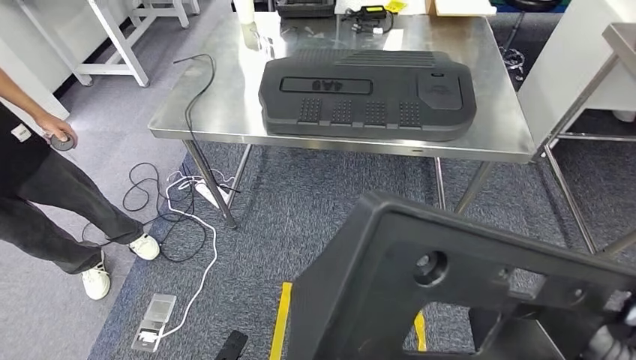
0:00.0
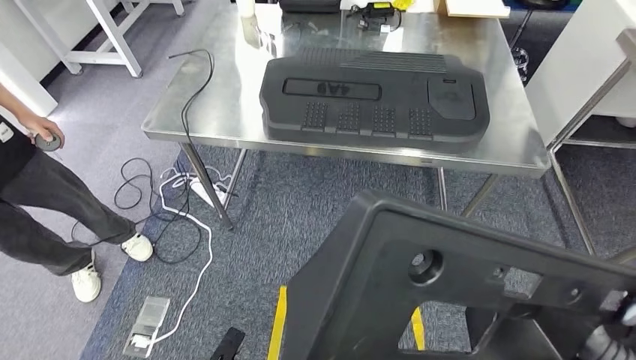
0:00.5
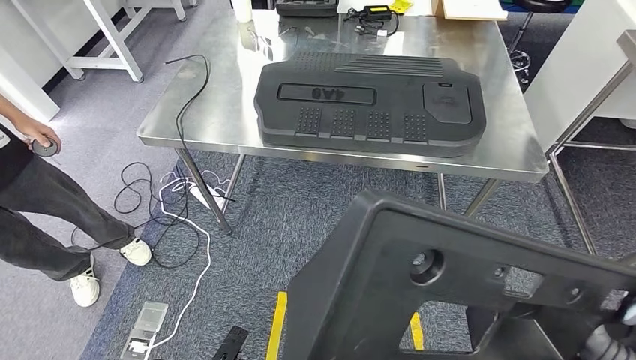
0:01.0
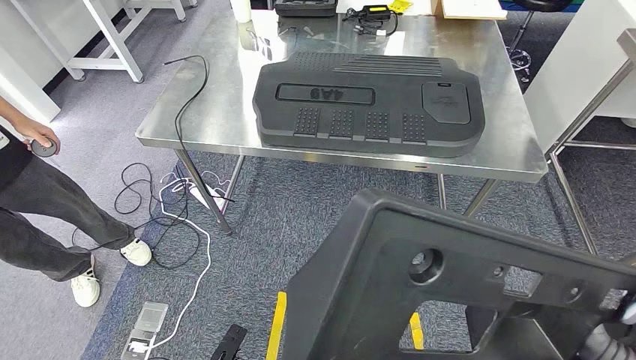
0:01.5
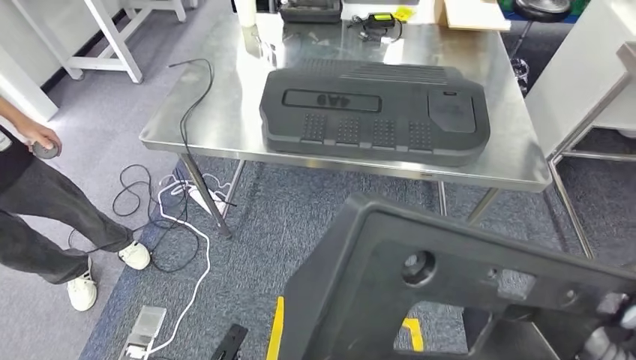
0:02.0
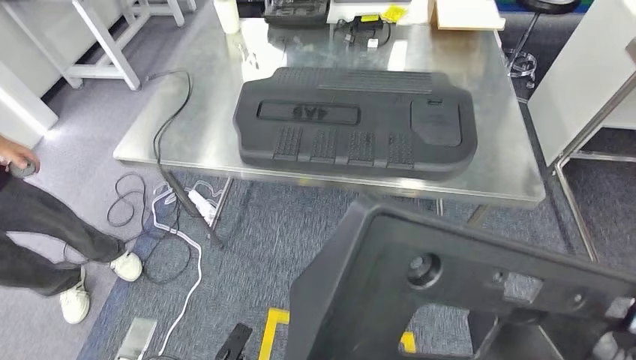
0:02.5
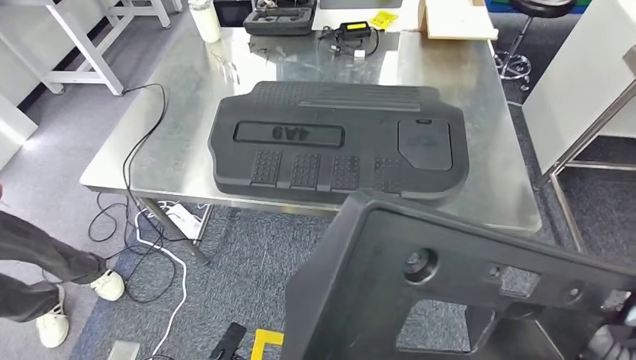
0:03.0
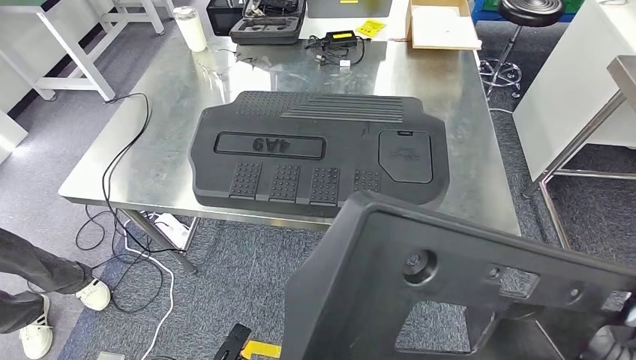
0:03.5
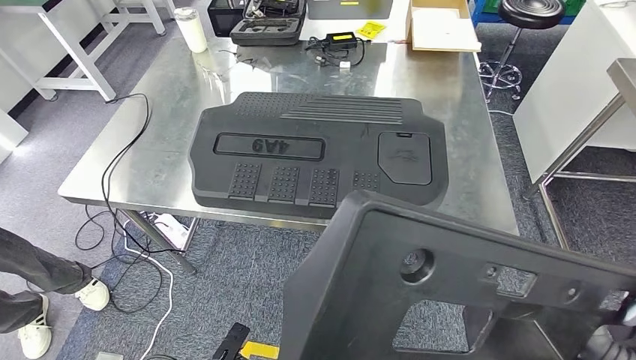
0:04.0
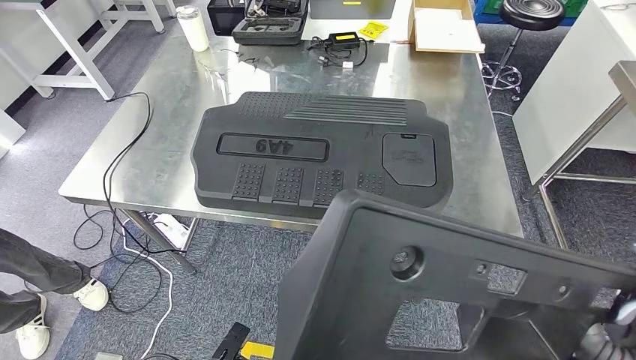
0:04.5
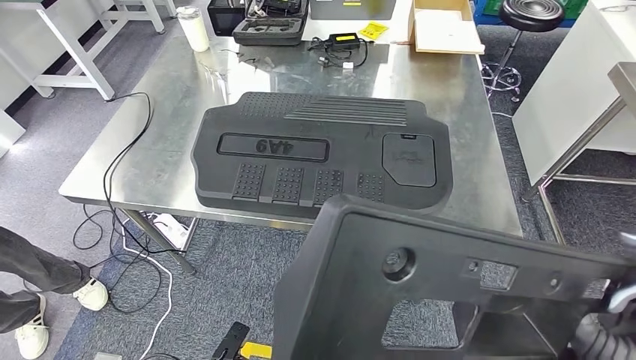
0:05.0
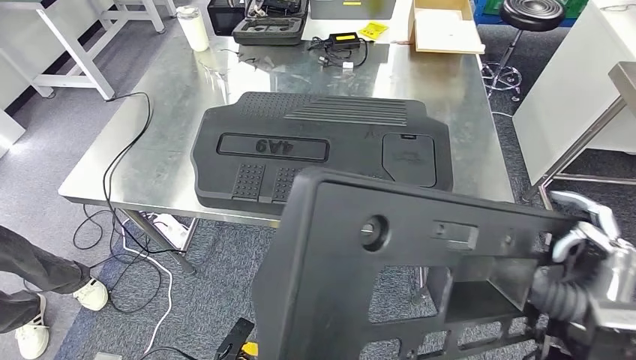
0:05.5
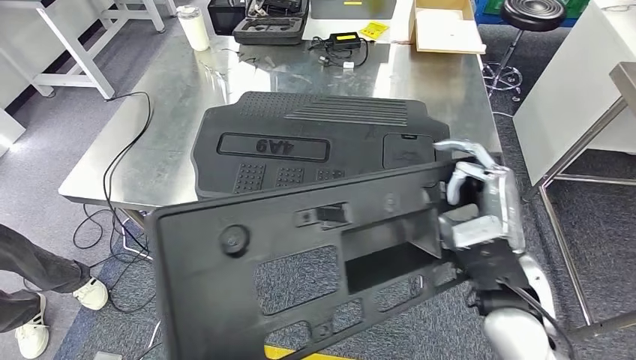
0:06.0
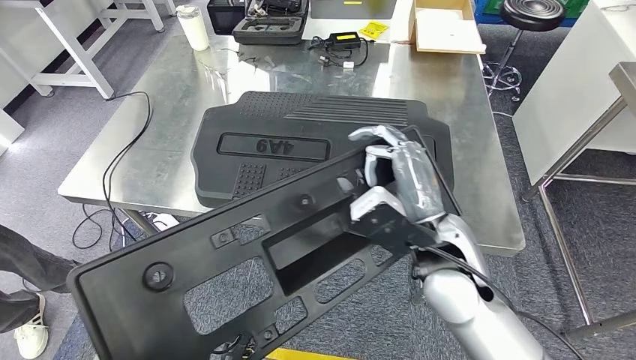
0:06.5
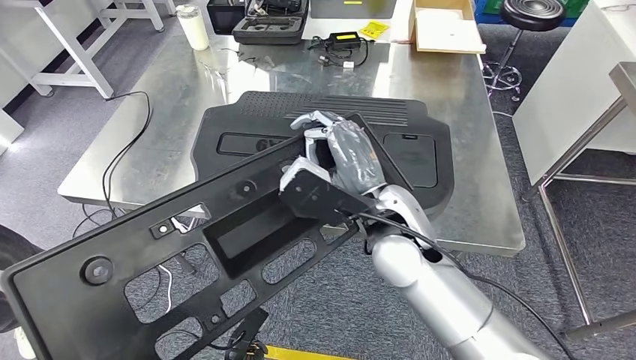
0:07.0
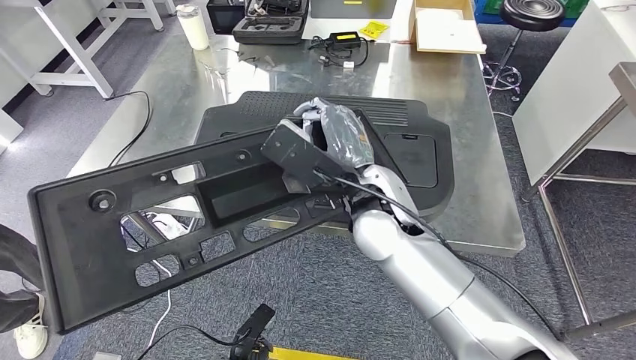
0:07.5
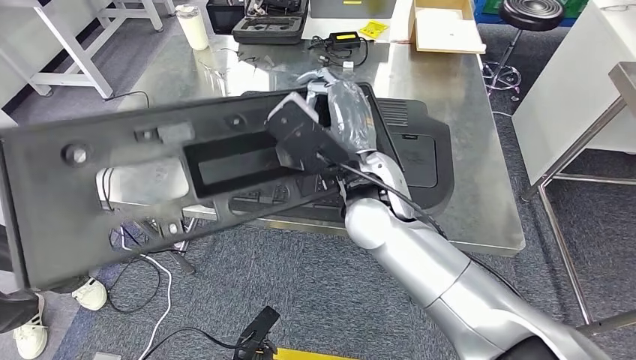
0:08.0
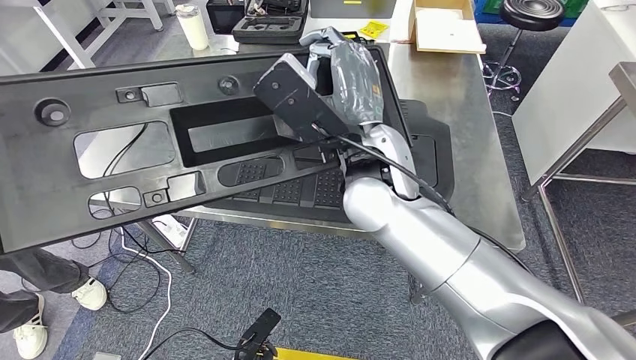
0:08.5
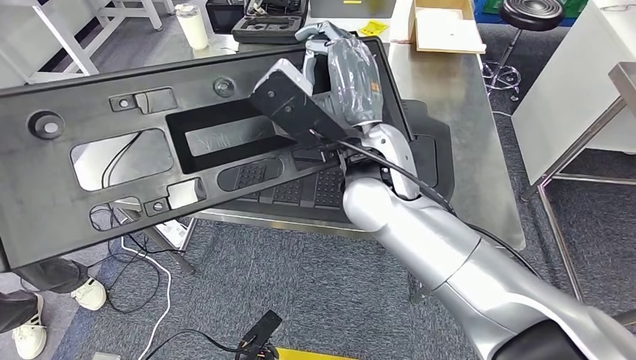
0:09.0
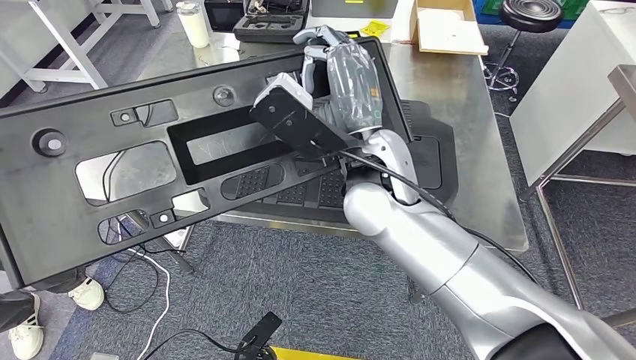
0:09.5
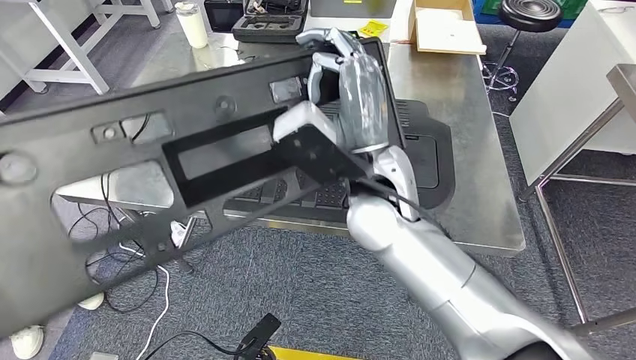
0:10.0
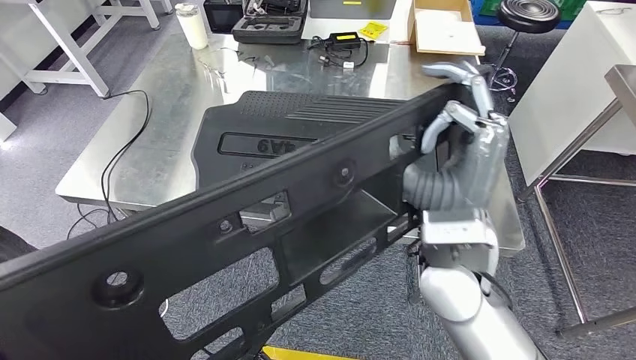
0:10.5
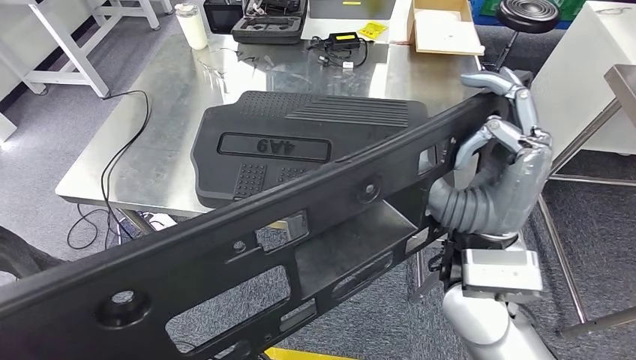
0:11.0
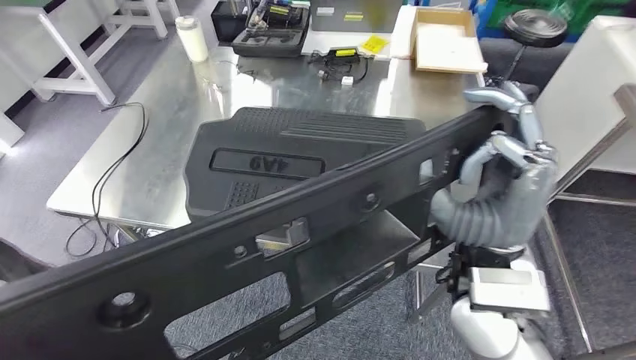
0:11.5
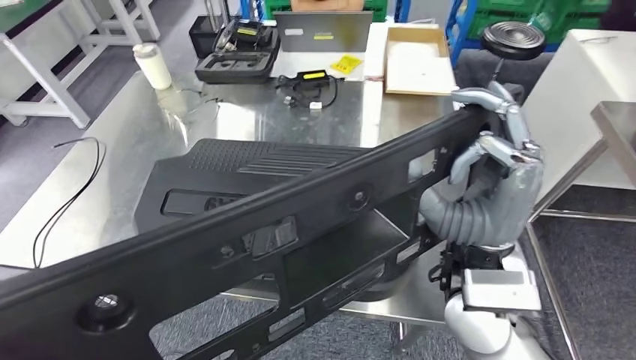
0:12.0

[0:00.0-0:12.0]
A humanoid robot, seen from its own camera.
Step, 0:00.0 to 0:03.5: Move the large material to the front of the workbench.

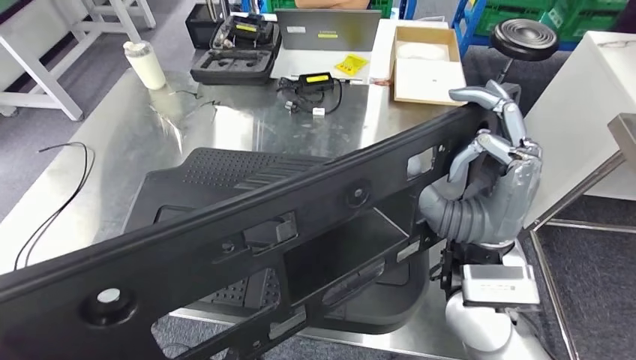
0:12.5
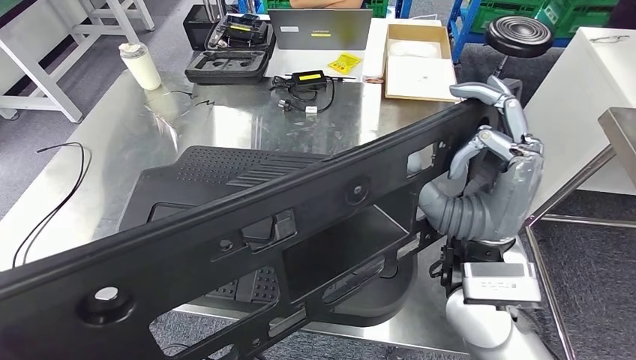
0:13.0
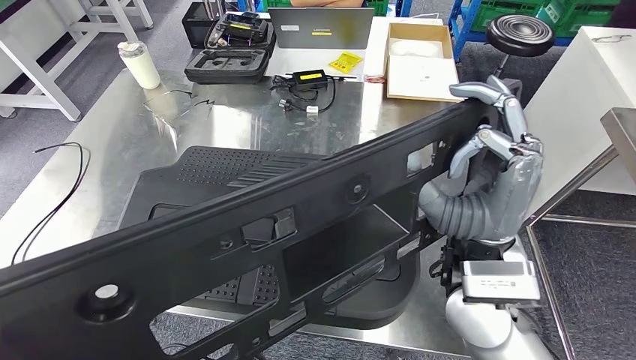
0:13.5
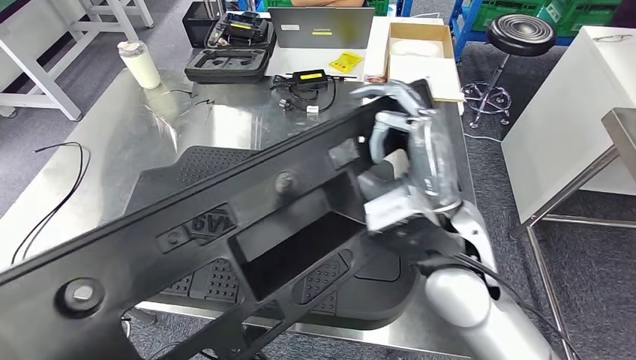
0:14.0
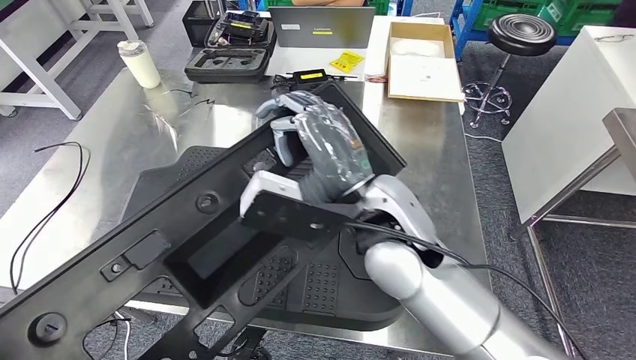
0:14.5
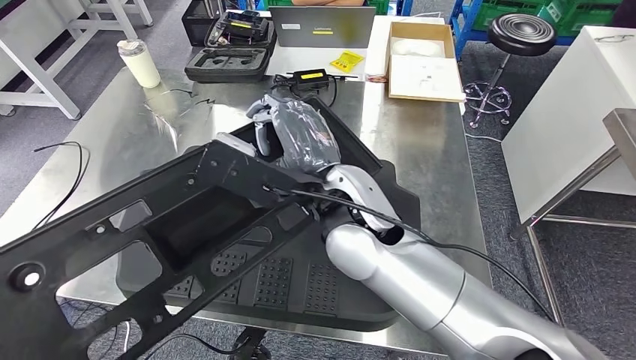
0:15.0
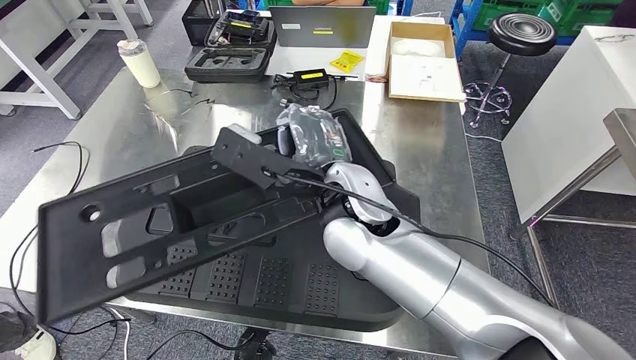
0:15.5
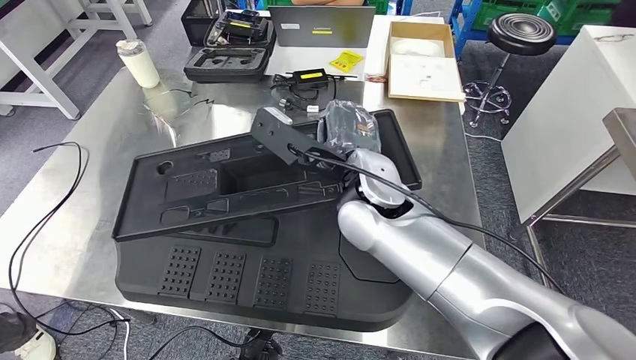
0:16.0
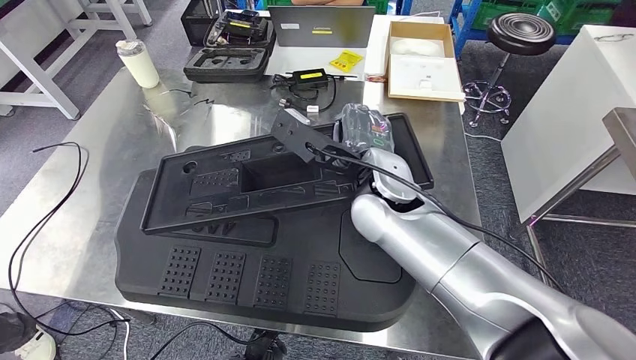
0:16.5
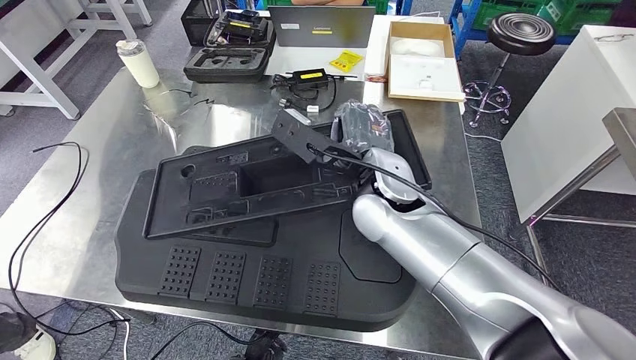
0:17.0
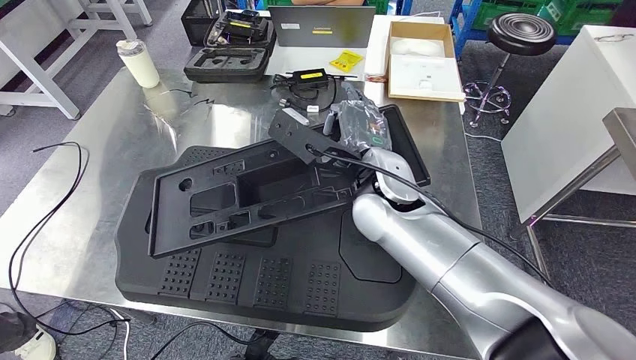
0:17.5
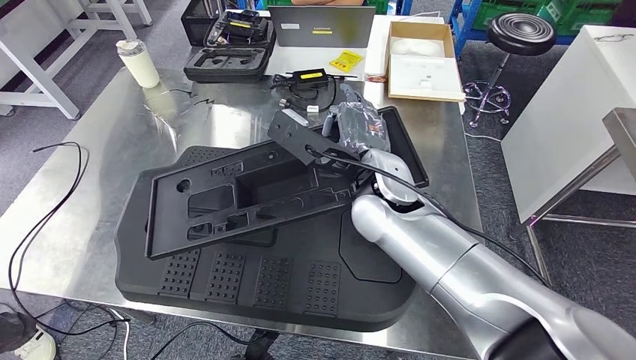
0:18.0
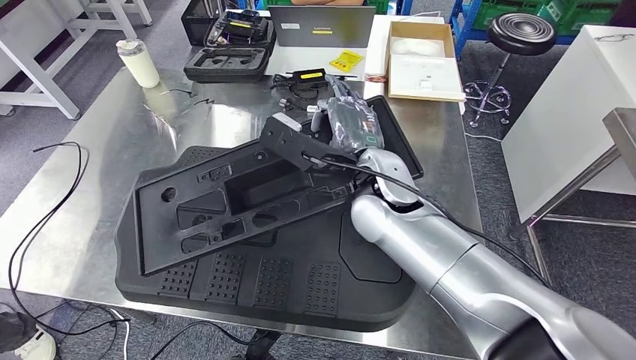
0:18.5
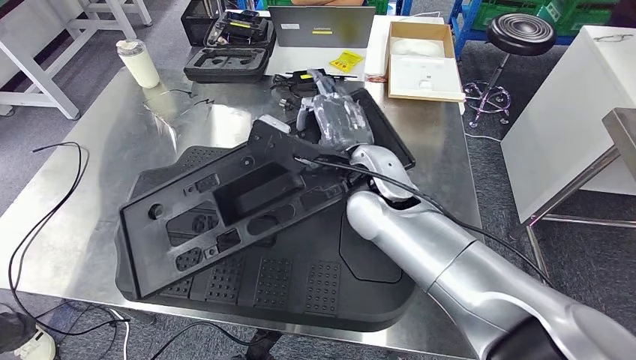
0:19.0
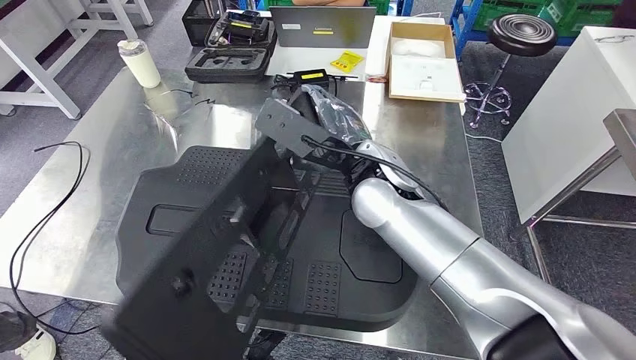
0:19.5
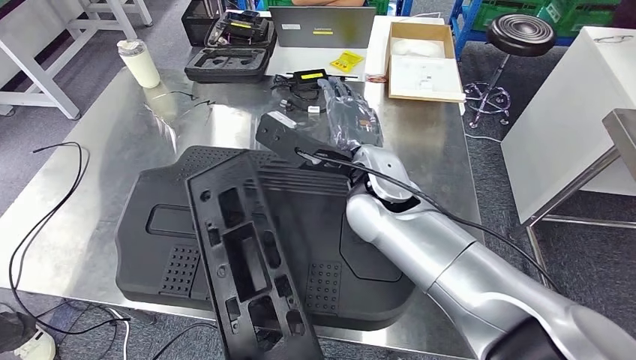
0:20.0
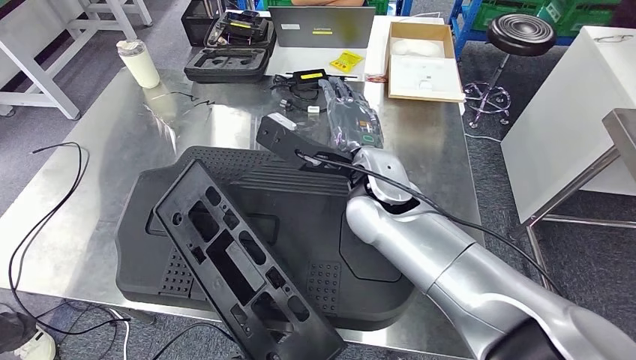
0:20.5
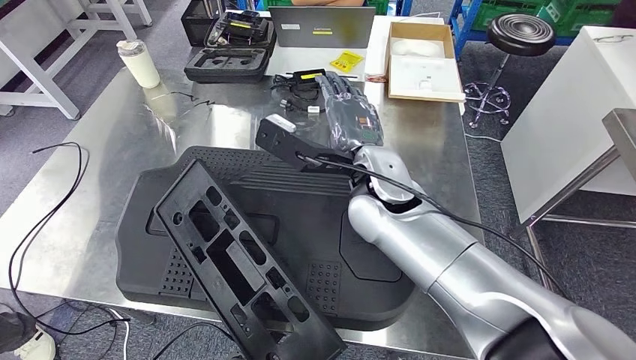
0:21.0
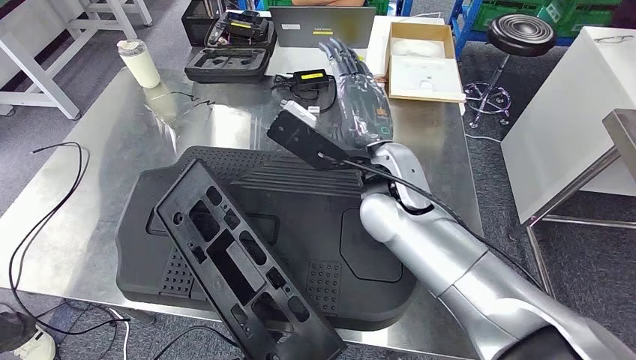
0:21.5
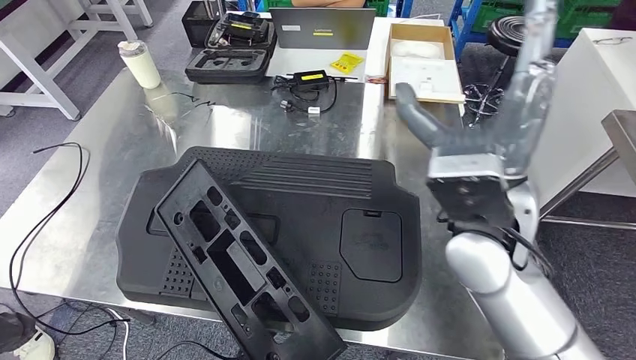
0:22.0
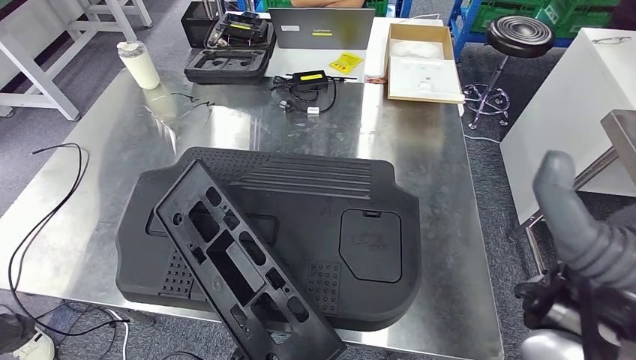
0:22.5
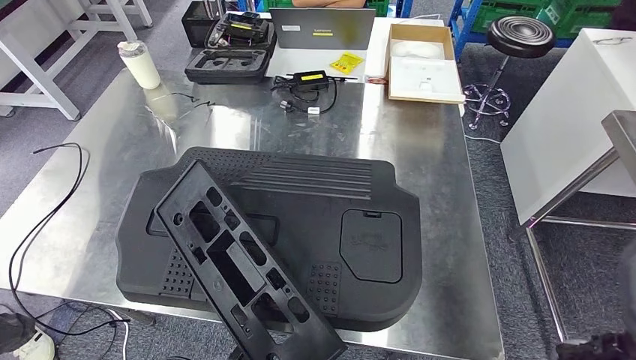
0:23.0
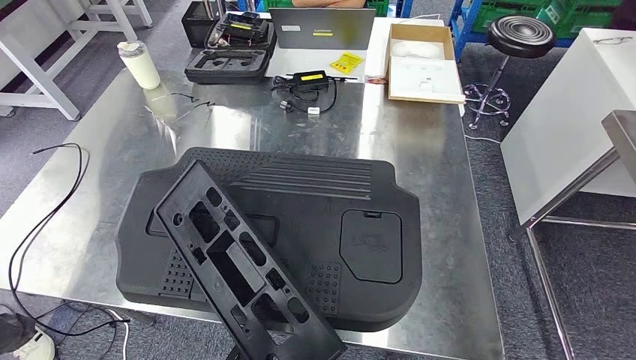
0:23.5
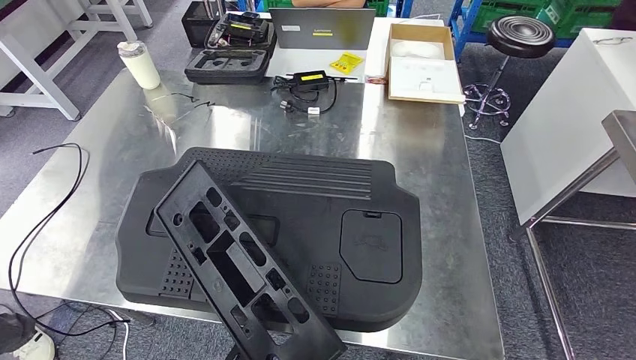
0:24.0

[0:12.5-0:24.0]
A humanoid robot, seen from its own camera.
0:16.5 to 0:18.5: There are only small adjustments of the hands.
0:22.0 to 0:24.0: The right hand travels to the right, downward and backward by some 30 cm.
